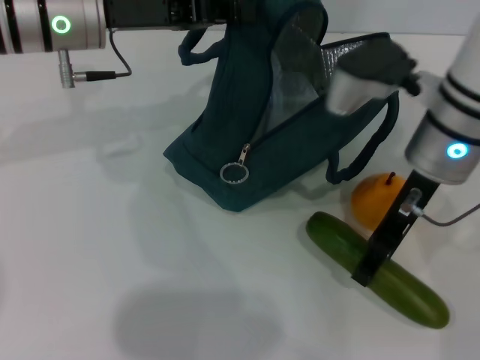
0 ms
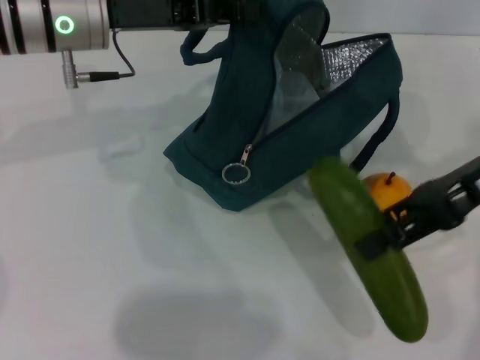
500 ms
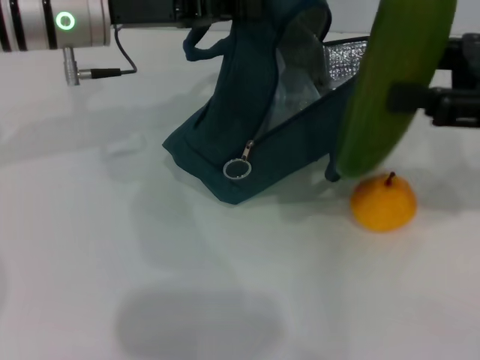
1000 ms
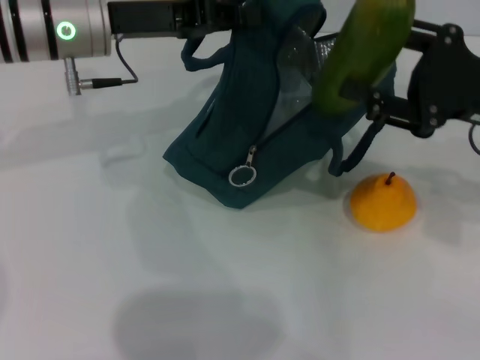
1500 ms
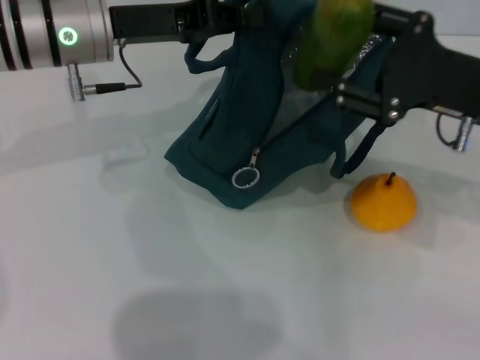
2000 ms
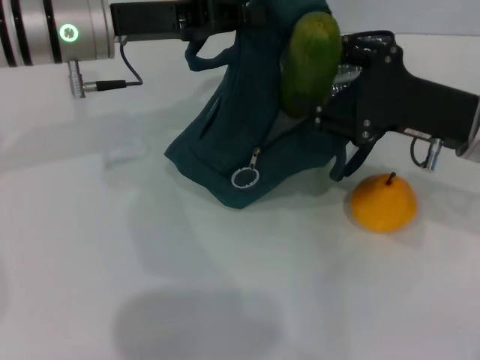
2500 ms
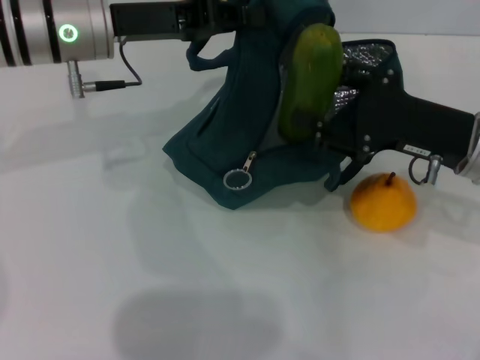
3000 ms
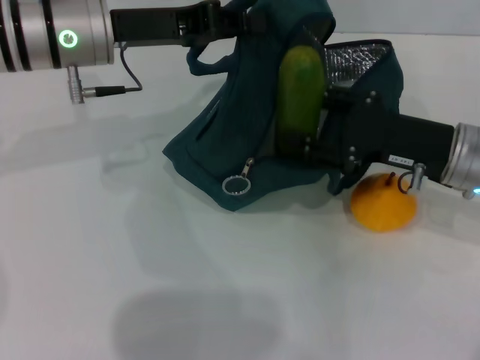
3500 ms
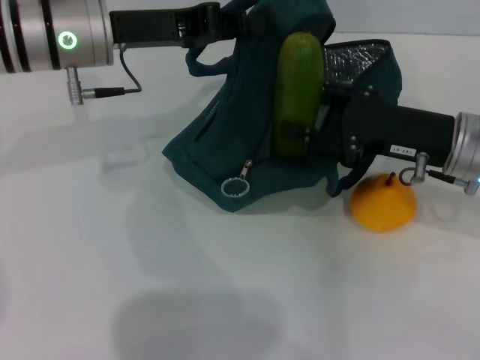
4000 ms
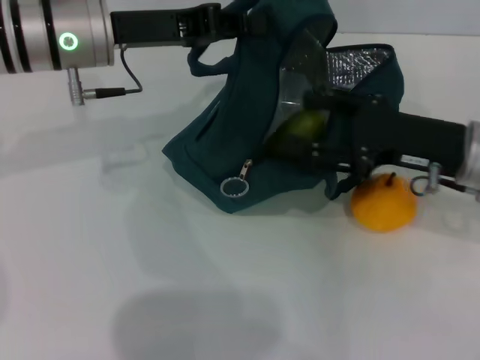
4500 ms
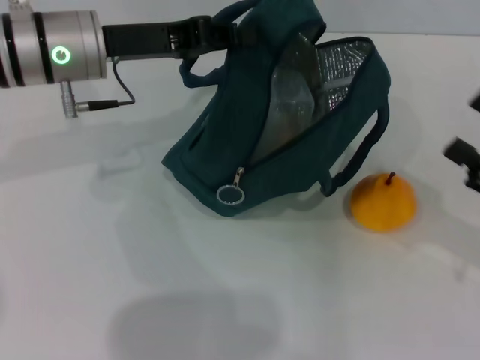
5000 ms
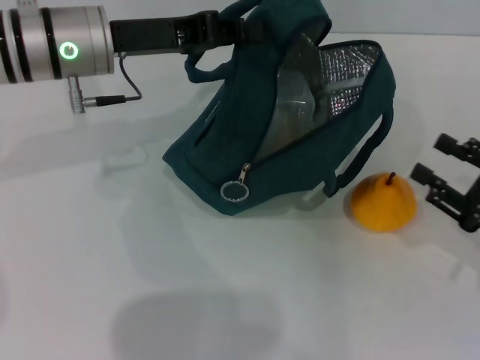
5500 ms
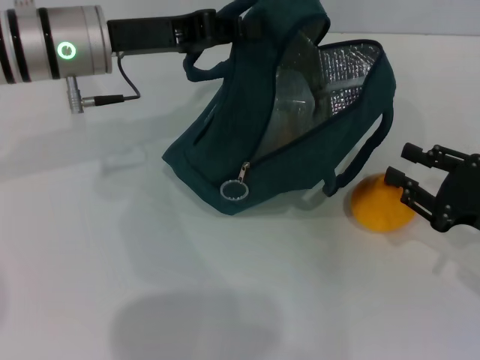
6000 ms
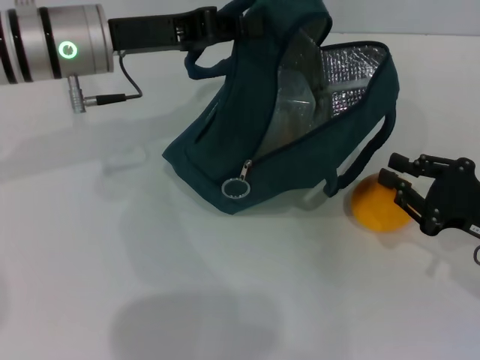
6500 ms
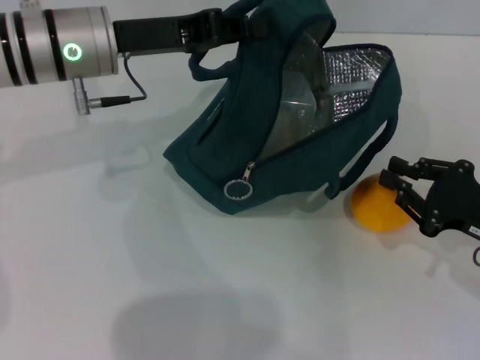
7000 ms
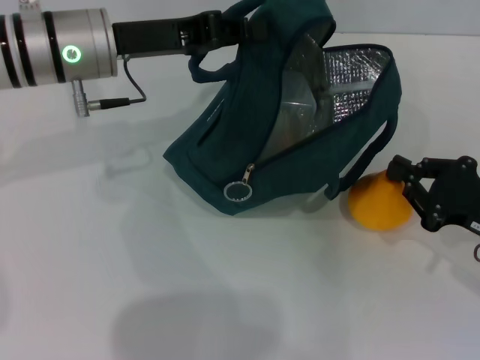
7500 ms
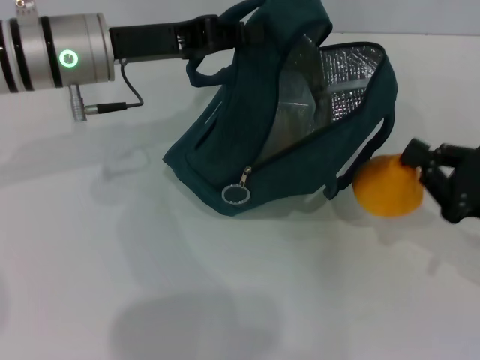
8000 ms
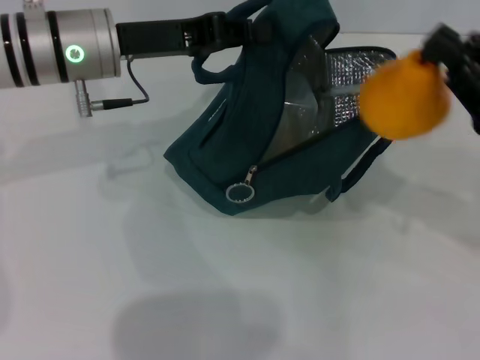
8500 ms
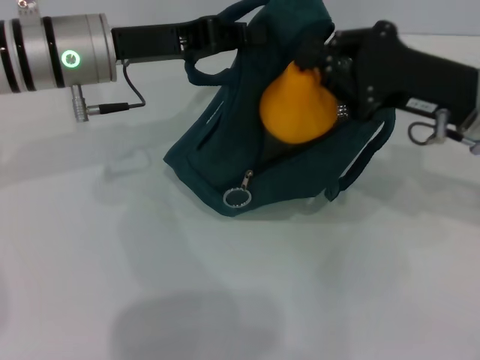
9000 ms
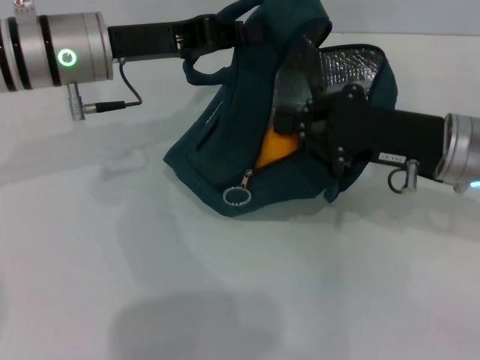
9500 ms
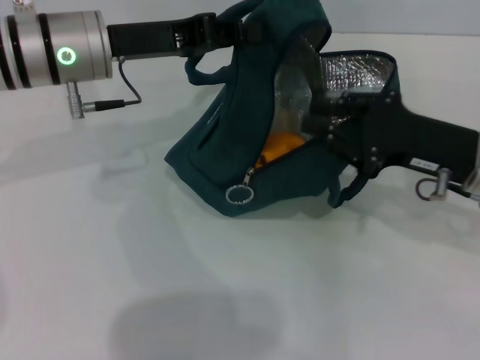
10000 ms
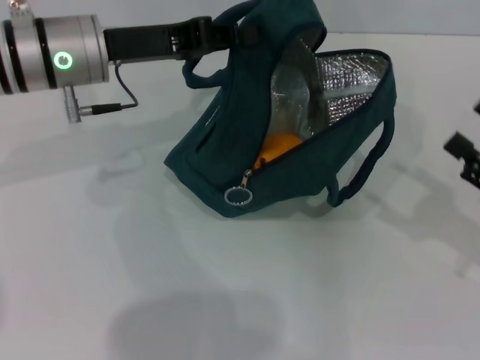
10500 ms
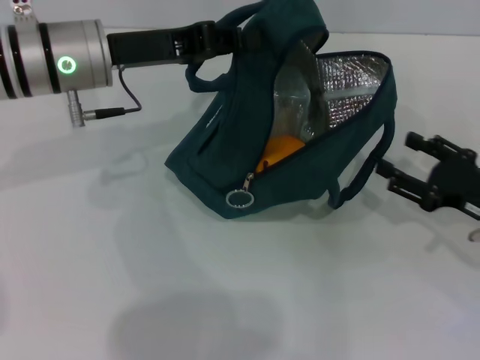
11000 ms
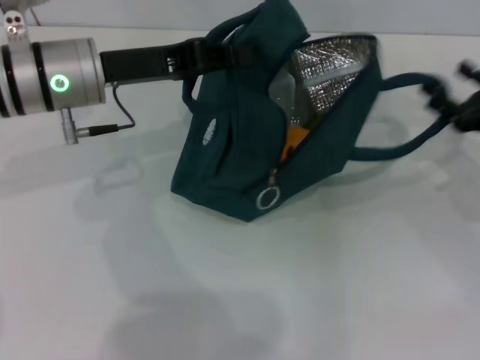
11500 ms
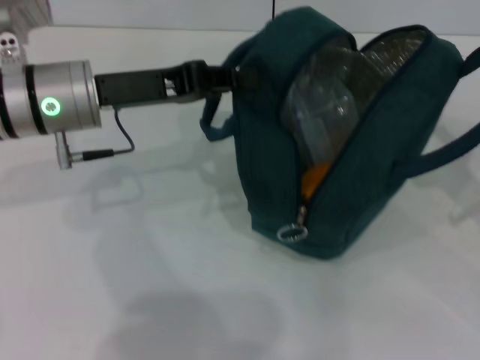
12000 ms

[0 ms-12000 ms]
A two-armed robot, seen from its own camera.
Step, 0 ms to 4500 ms: Put the cucumber into the lunch bag with your right hand.
Step, 5000 ms to 7000 ms: Grab the pear with your right hand.
0 ms to 2000 ms: The right gripper shifts approximately 10 cm to the right.
4000 ms to 6000 ms: The right gripper shifts roughly 15 cm to the right, backward and downward.
6000 ms to 8000 ms: The right gripper closes its fingers.
8000 ms to 10000 ms: The right gripper moves to the left and forward, some 10 cm.
10000 ms to 12000 ms: The right gripper shifts roughly 10 cm to the right, and opens.

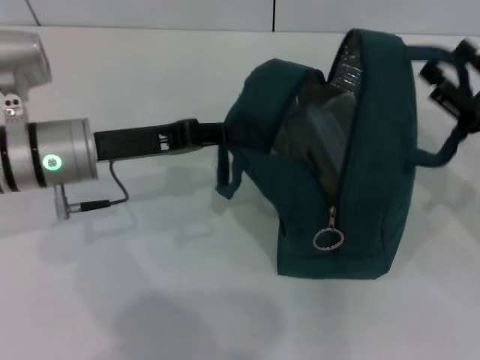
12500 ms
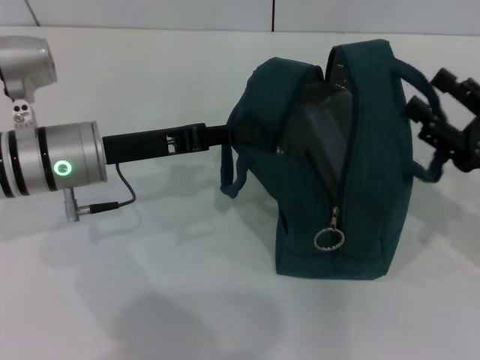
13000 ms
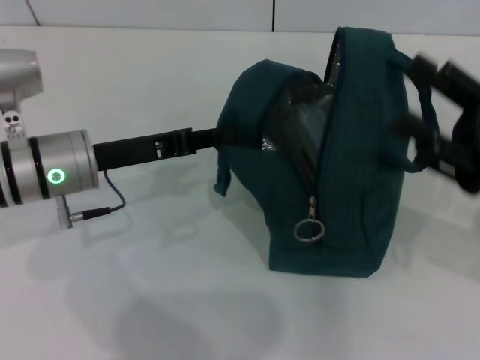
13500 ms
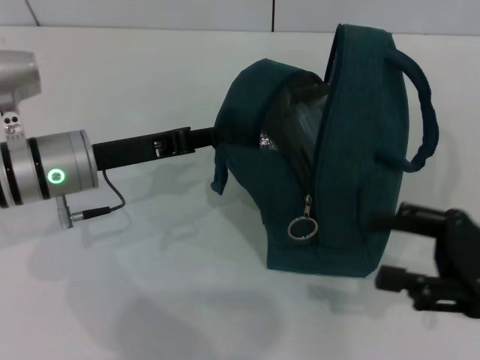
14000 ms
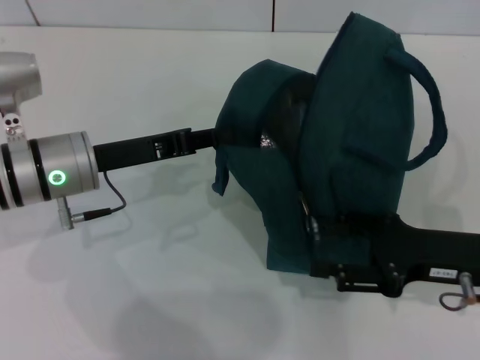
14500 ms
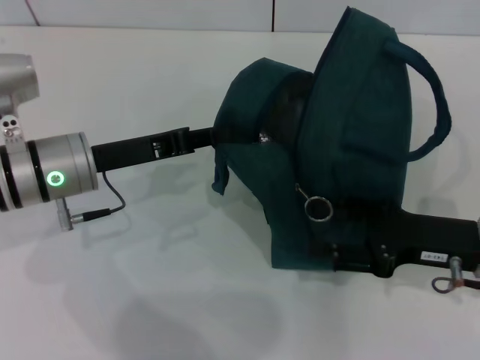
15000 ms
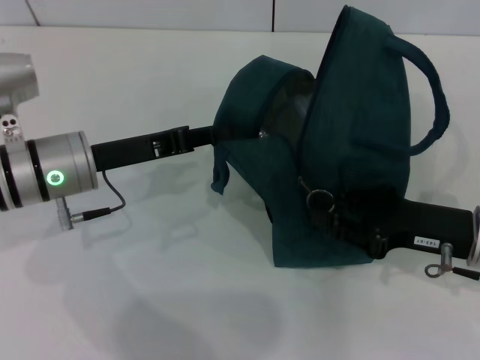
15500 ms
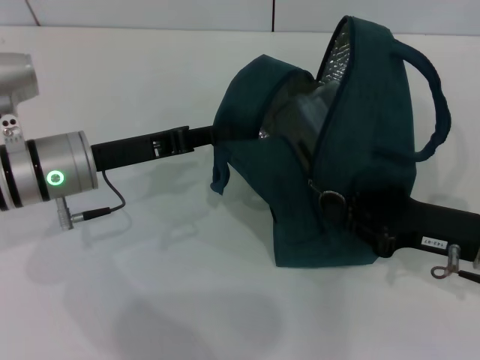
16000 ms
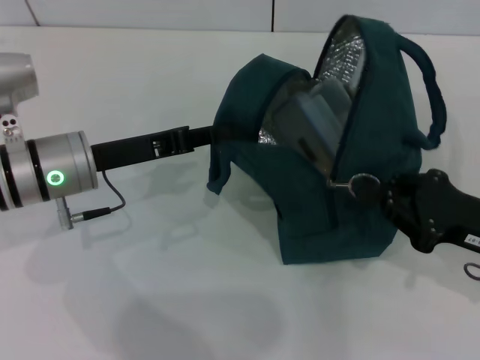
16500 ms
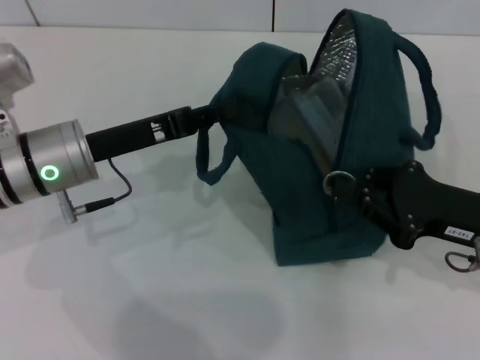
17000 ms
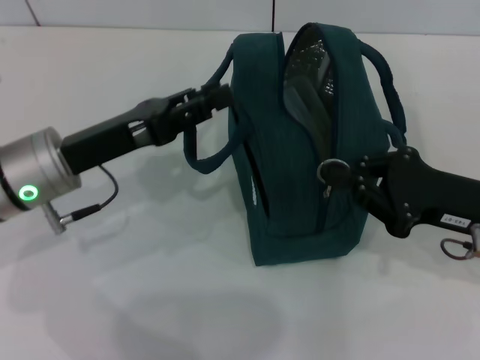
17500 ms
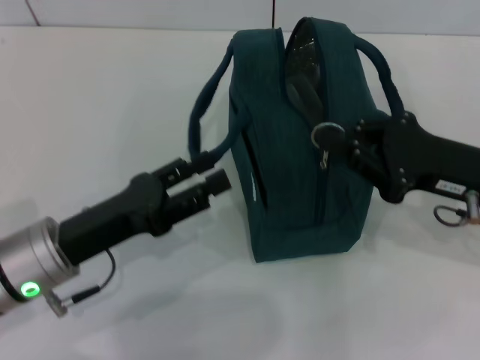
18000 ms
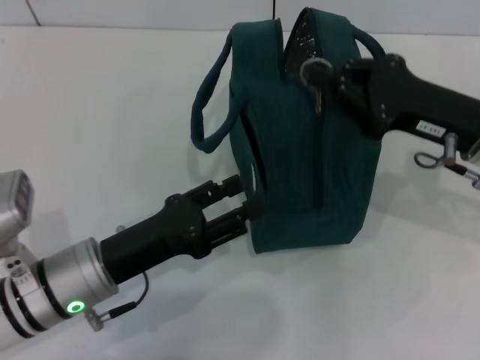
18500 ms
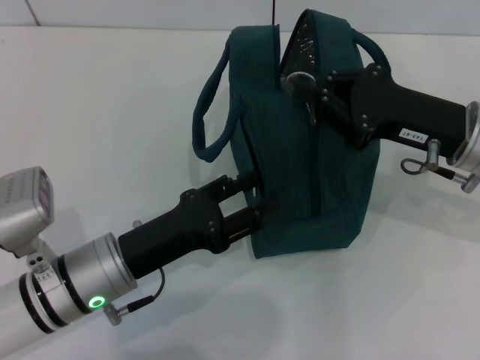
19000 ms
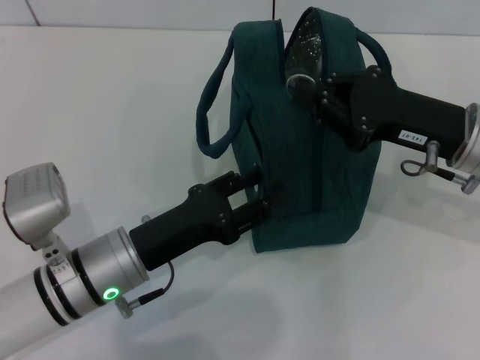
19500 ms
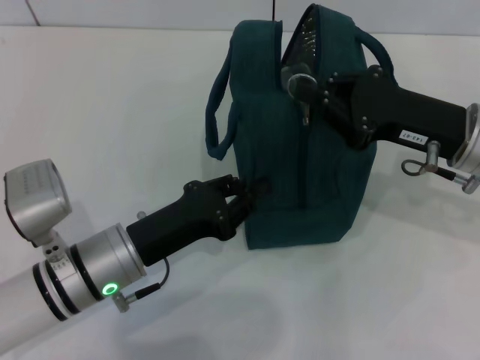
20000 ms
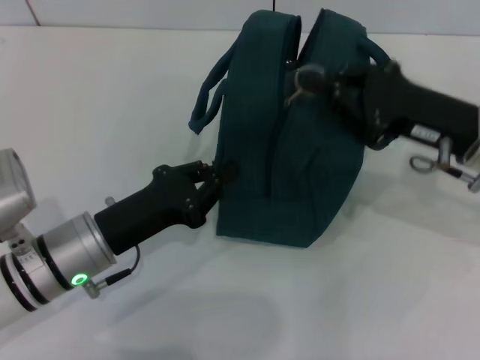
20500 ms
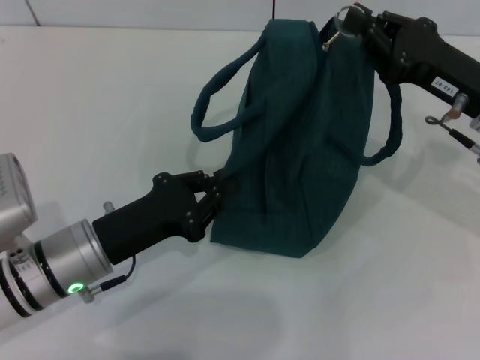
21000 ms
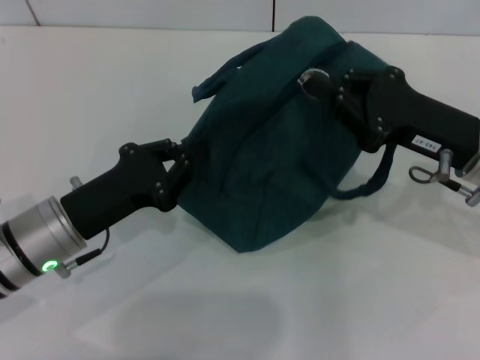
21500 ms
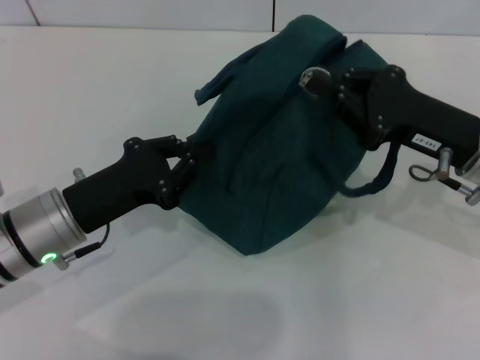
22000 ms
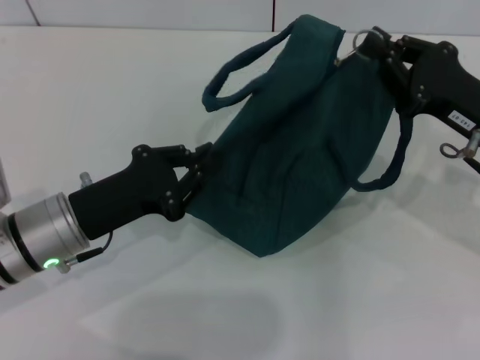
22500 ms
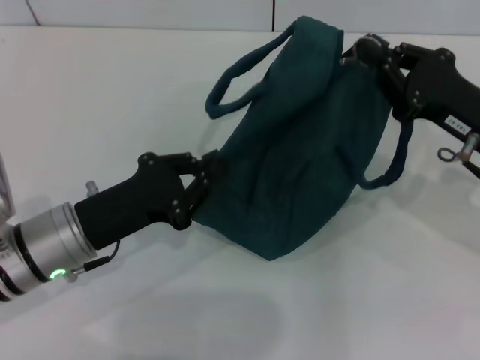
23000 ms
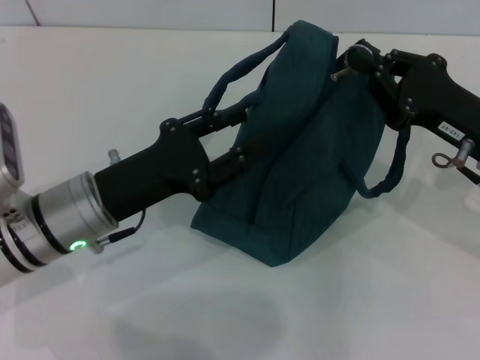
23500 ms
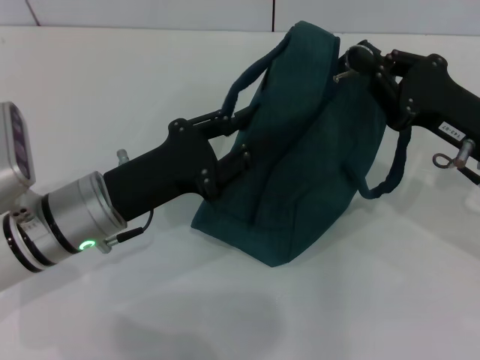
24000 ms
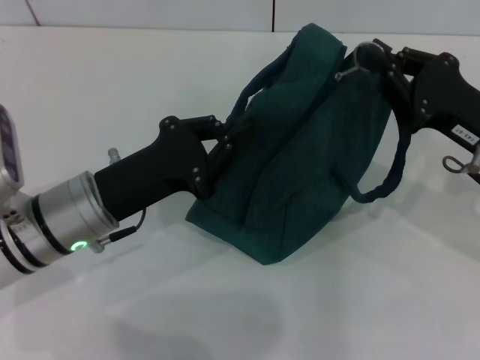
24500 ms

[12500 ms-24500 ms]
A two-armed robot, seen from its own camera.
12500 ms to 14500 ms: The right gripper is displaced to the left by approximately 5 cm.
14500 ms to 16500 ms: The right gripper closes.
16500 ms to 18500 ms: The left gripper goes about 10 cm backward and downward, and opens its fingers, while the right gripper is displaced forward, upward and to the left by some 10 cm.
18500 ms to 20500 ms: The left gripper closes its fingers.
22500 ms to 24500 ms: The left gripper opens, then closes again.

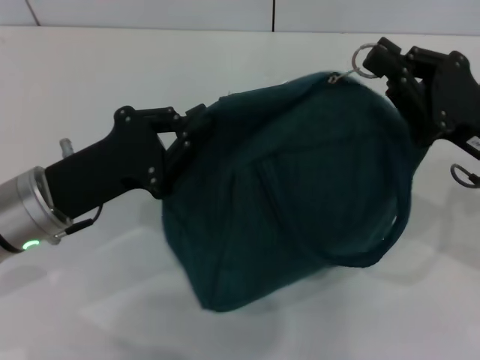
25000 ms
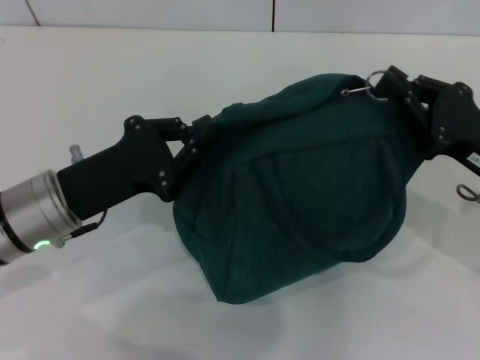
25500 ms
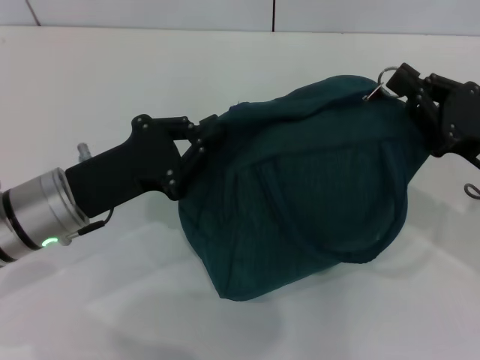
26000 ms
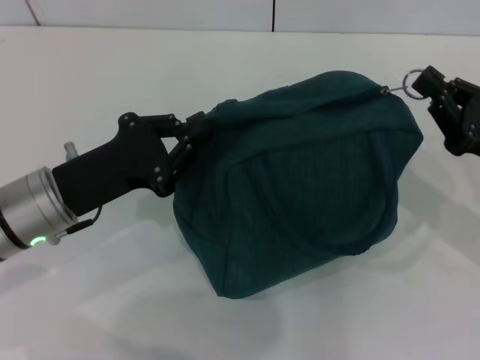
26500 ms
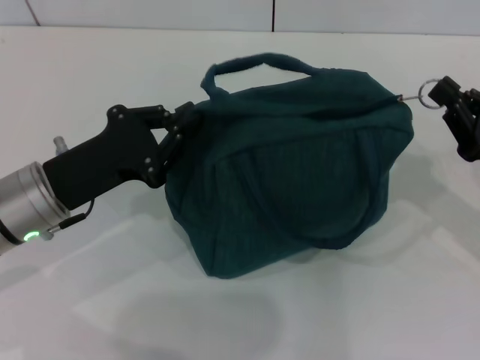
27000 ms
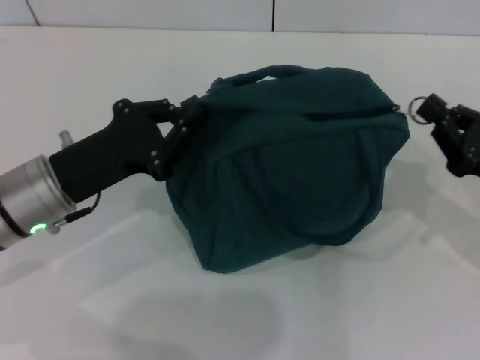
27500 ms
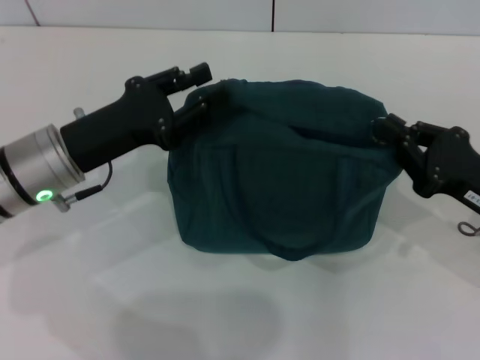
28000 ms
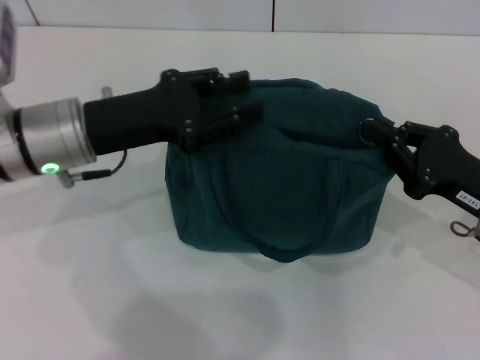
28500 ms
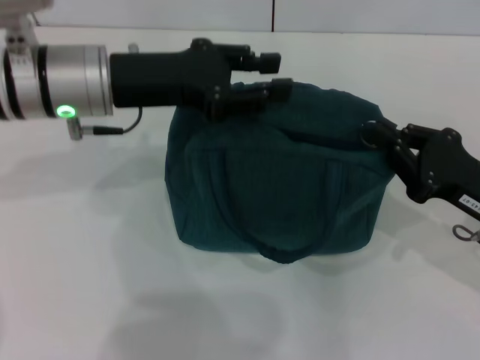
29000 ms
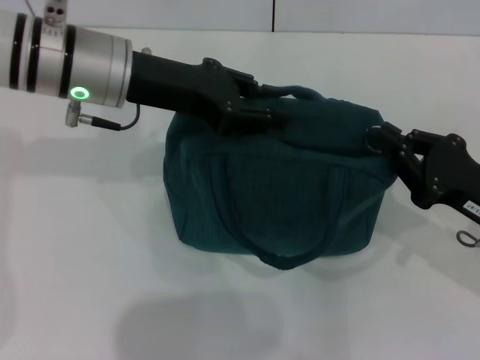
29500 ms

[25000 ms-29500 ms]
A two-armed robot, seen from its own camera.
25000 ms to 27000 ms: The right gripper goes some 5 cm to the right.
27000 ms to 29500 ms: The left gripper travels upward, forward and to the right by approximately 15 cm, and opens its fingers.
